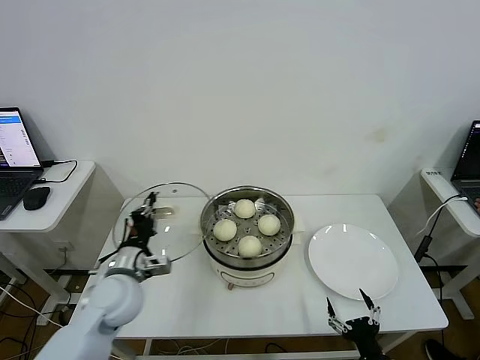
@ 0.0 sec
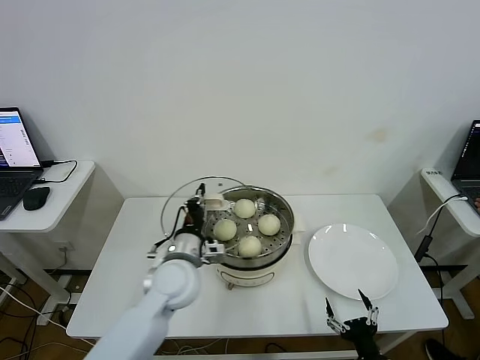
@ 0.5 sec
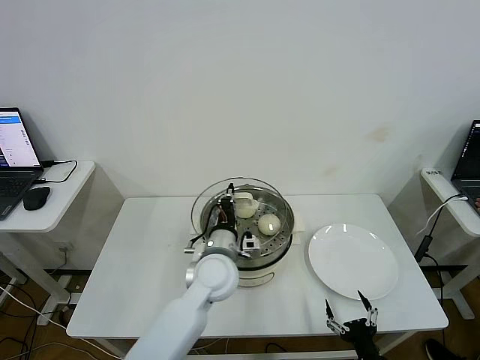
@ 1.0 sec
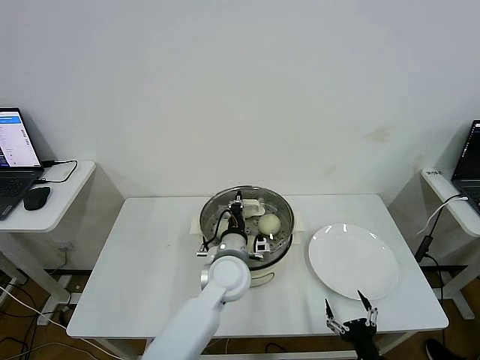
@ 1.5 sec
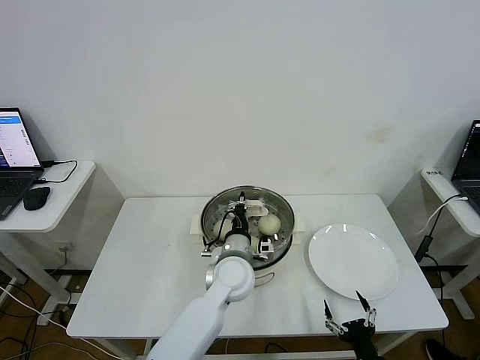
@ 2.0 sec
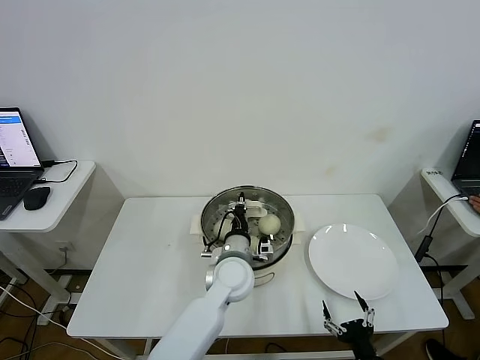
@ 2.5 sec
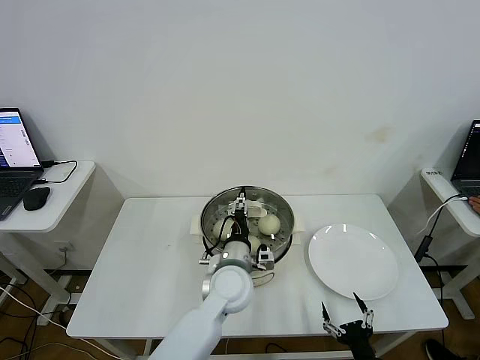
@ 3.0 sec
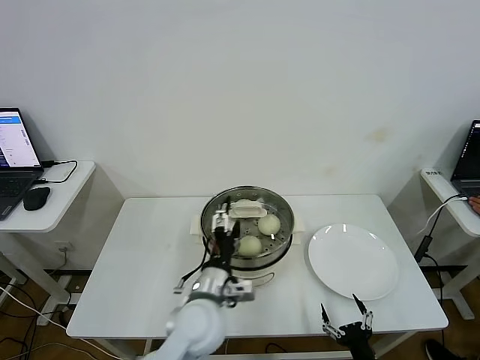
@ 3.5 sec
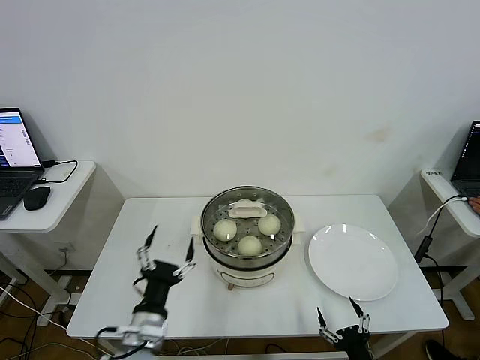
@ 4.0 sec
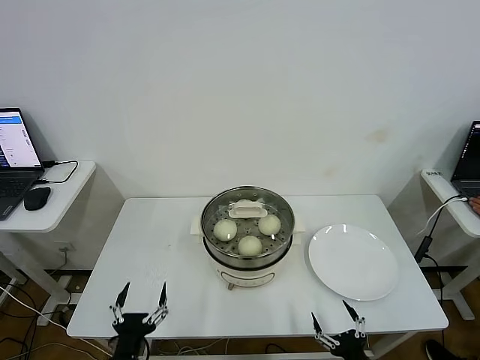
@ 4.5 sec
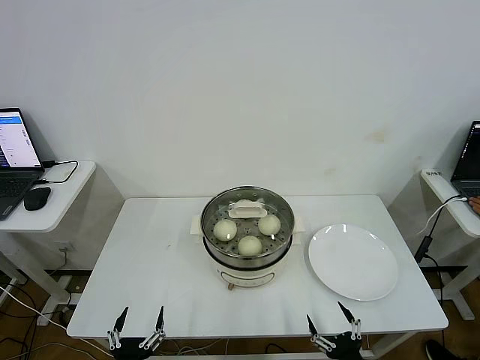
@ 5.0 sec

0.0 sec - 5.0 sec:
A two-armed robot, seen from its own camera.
Step, 0.0 sec - 3.5 sec: Place the pot lid on the steamer with left gripper.
0.0 sec - 2.5 sec: The left gripper is displaced to the right by roughly 25 cm.
2.5 sec - 5.0 sec: The left gripper goes approximately 35 cm backward and to the left, and opens its fingers.

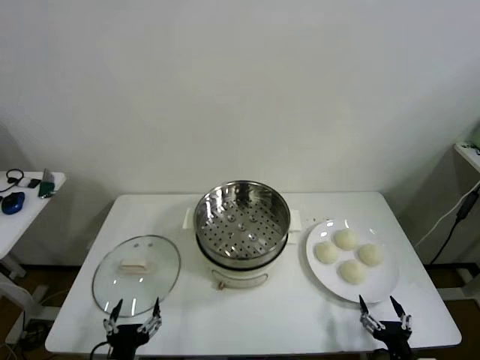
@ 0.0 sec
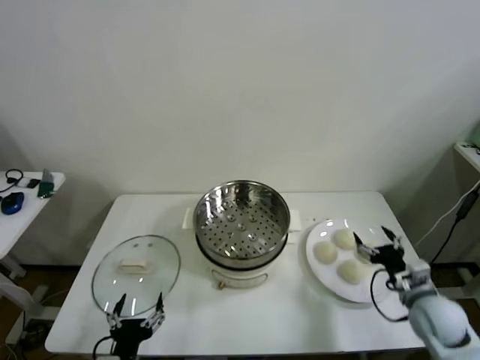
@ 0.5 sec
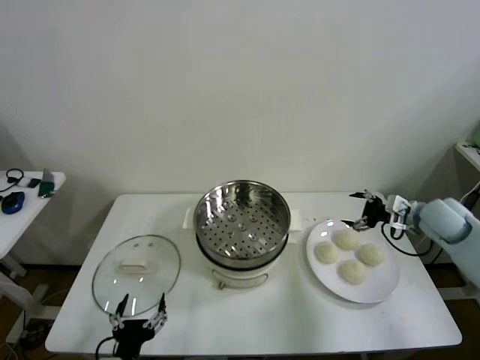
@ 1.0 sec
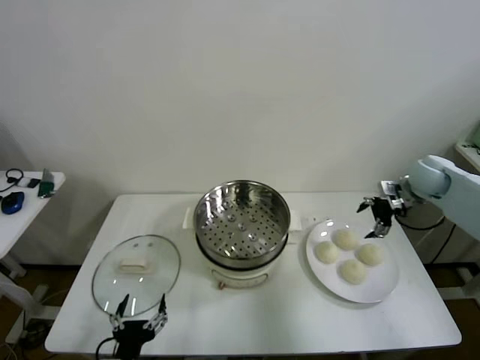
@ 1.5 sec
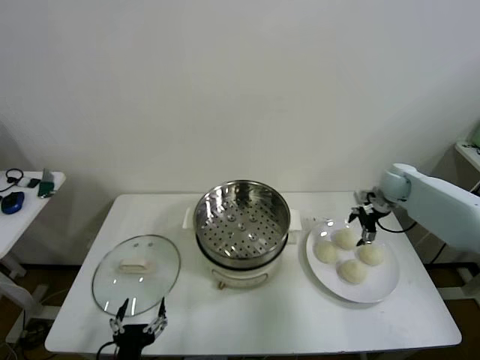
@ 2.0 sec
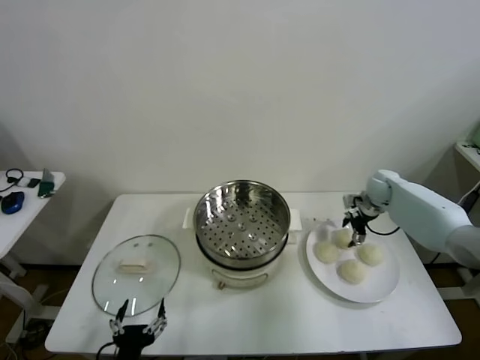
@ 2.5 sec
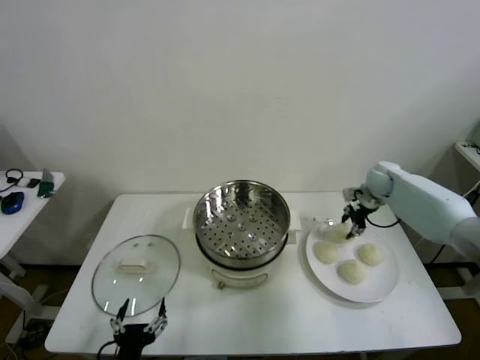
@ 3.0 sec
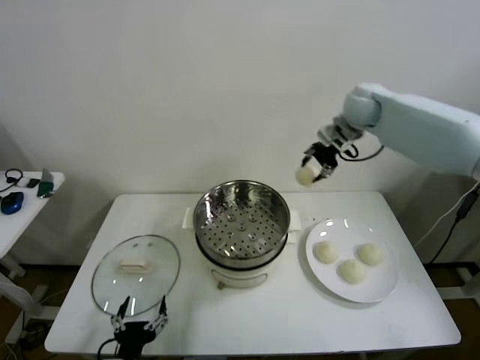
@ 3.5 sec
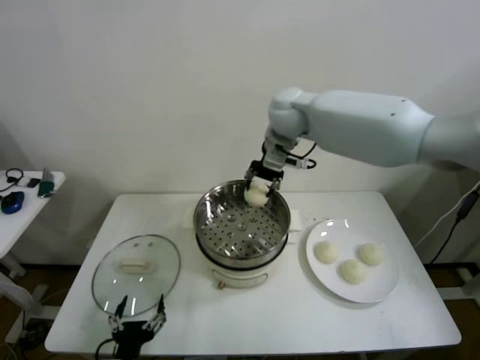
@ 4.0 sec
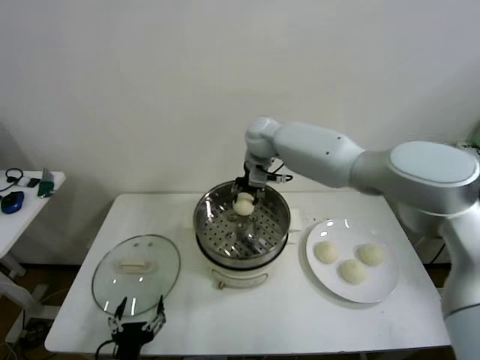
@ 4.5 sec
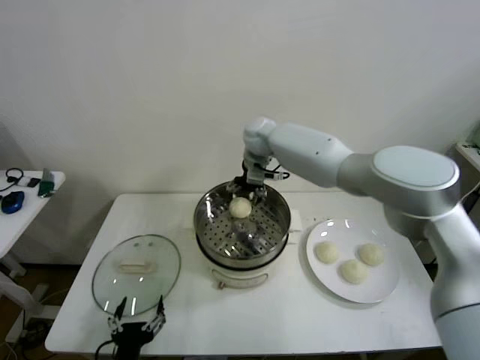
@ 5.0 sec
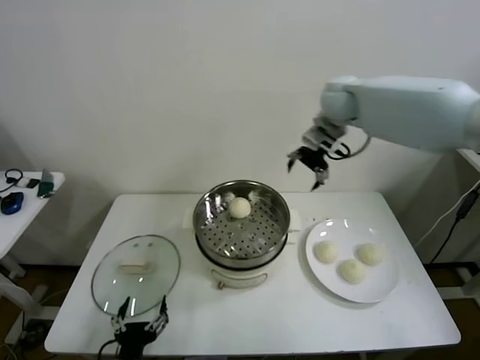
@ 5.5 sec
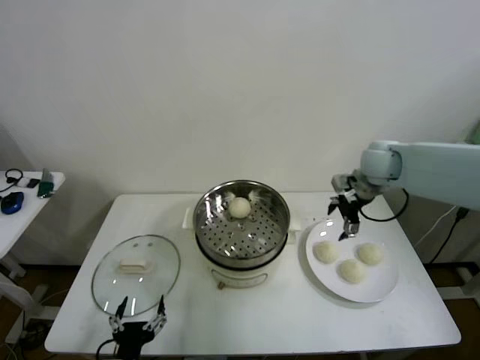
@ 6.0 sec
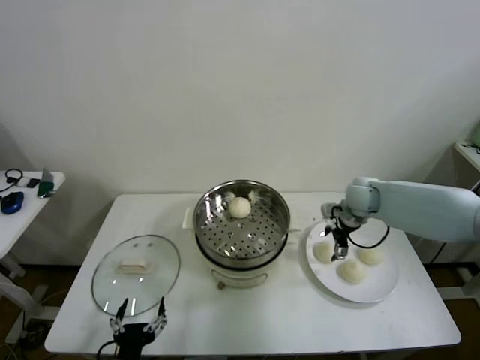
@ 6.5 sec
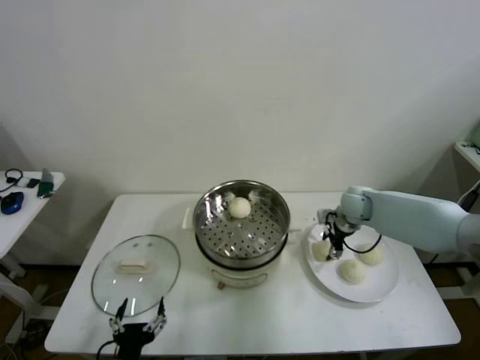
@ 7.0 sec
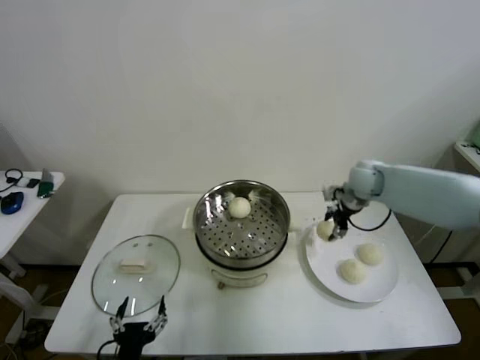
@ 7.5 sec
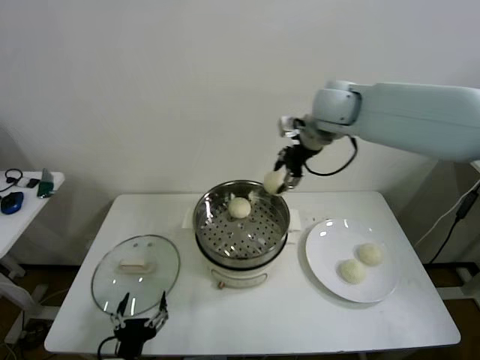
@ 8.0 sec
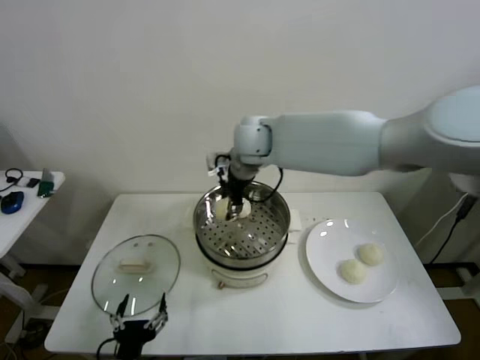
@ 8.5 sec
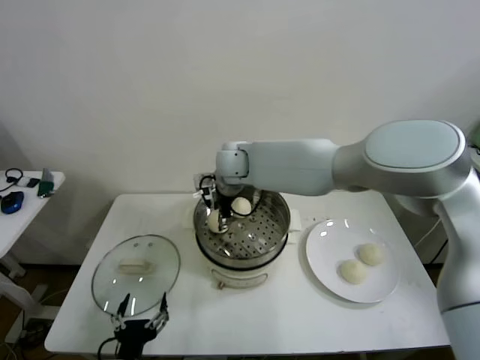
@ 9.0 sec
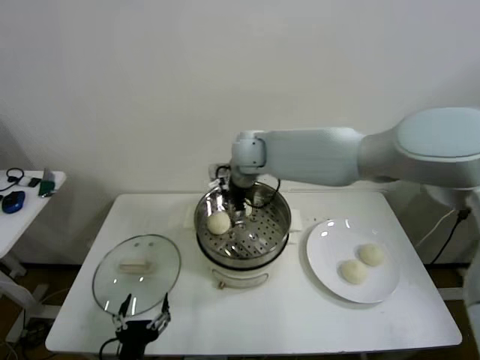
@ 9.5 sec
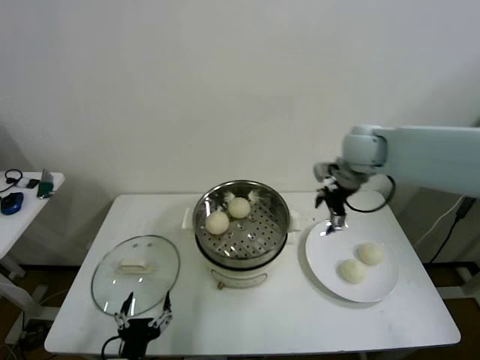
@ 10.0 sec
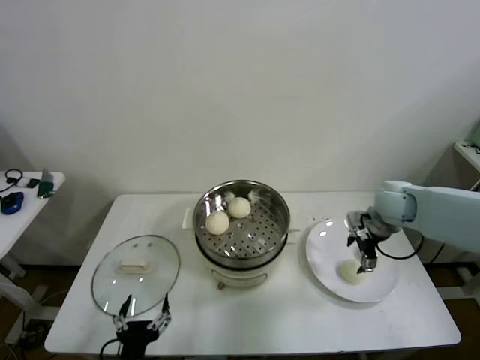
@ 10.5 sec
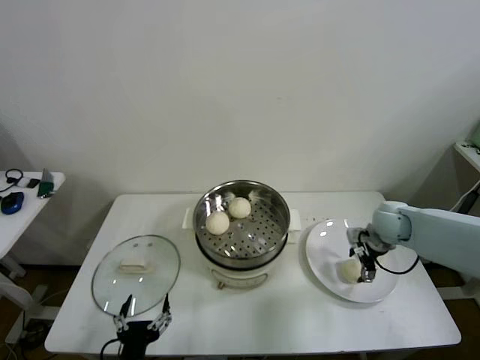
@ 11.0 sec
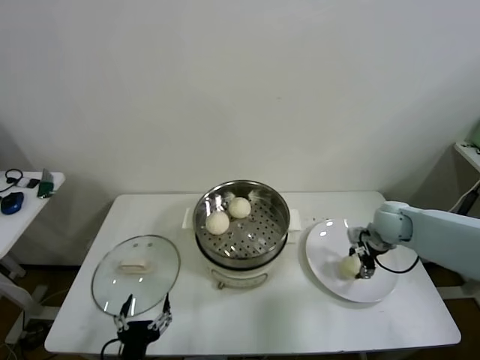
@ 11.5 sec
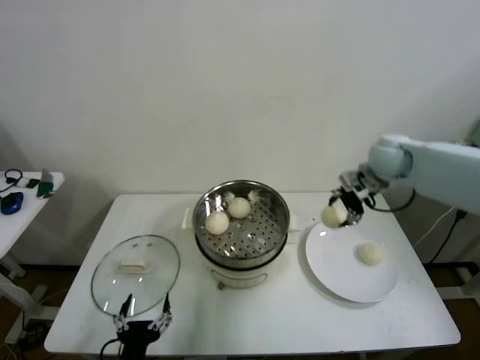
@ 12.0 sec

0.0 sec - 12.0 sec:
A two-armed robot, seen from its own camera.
Step, 0.0 sec - 2.5 sec: Grasp the baozi in the plate with right gripper.
Step, 3.0 sec - 4.5 sec: Place the baozi on the steamer with right gripper.
Step, 5.0 sec - 7.0 sec: Grasp the baozi in the plate with right gripper.
Step, 7.5 sec - 9.0 sec: Place the baozi on the steamer with right gripper.
Step, 9.5 sec - 11.0 sec: Grasp the baozi in the plate with right gripper.
2.0 sec - 4.0 sec: The right gripper moves to the left and upward, roughly 40 cm, and closes up.
4.0 sec - 6.0 sec: The right gripper travels to the right and downward by about 25 cm, and opens its fingers.
6.0 sec - 8.0 sec: The right gripper travels to the left and upward by approximately 25 cm, and closes.
8.0 sec - 10.0 sec: The right gripper goes about 15 cm to the right and downward, and opens.
10.0 sec - 12.0 sec: The right gripper moves some 15 cm downward and comes back, and closes its fingers.

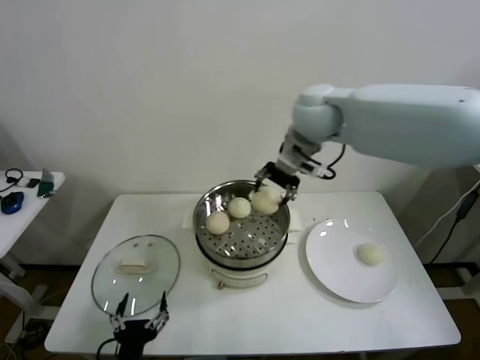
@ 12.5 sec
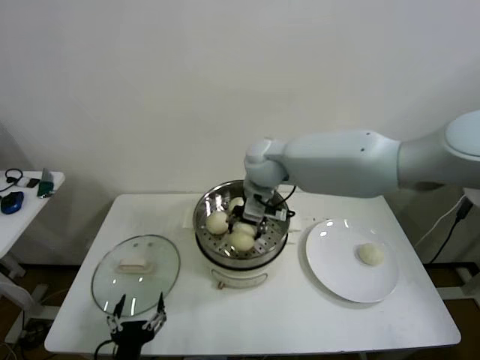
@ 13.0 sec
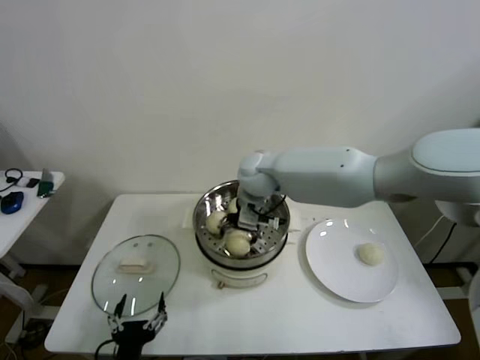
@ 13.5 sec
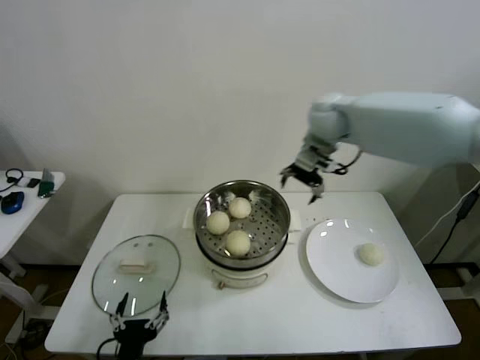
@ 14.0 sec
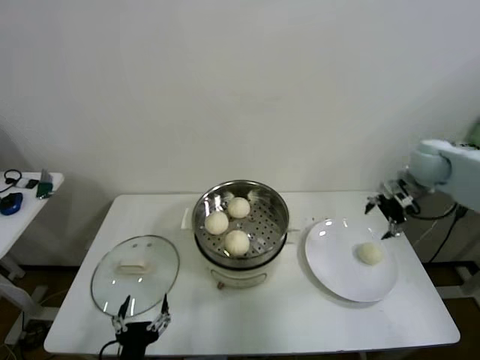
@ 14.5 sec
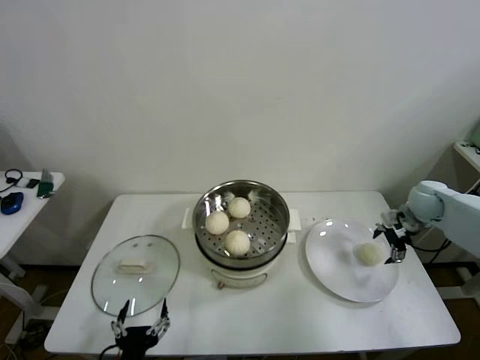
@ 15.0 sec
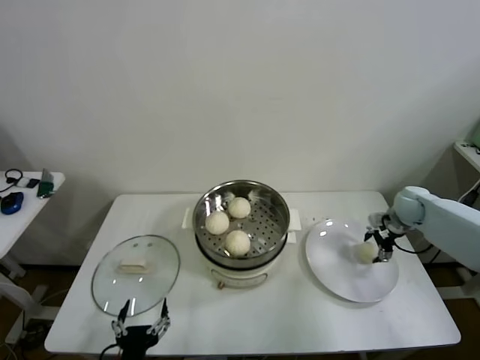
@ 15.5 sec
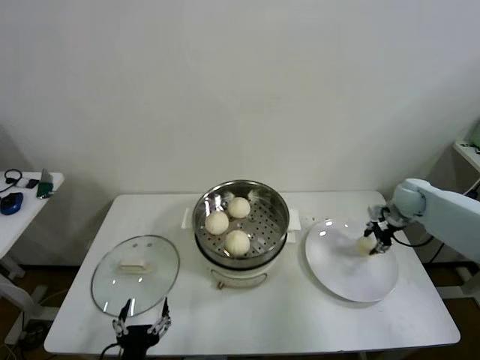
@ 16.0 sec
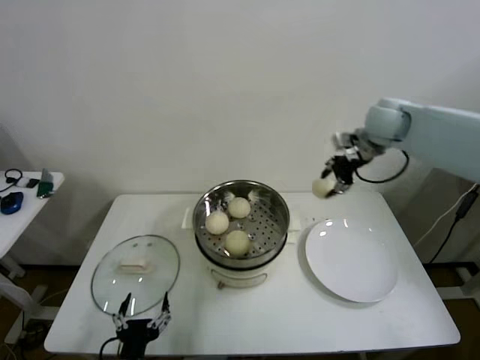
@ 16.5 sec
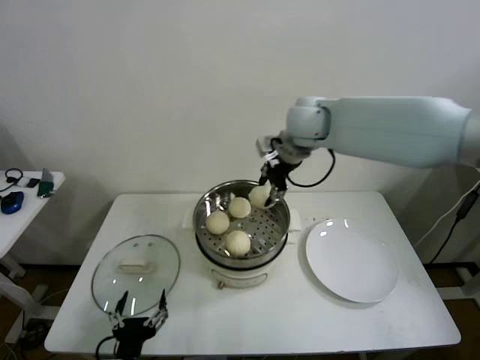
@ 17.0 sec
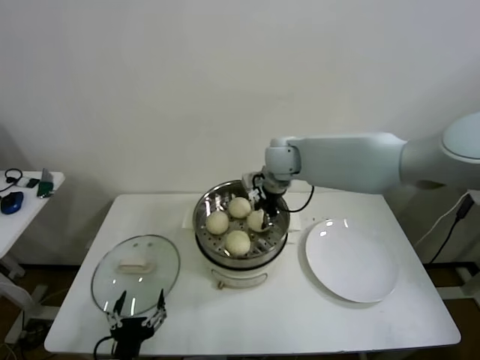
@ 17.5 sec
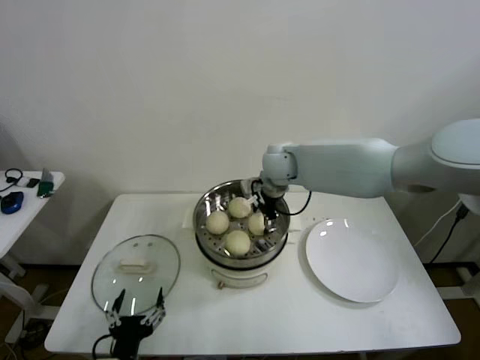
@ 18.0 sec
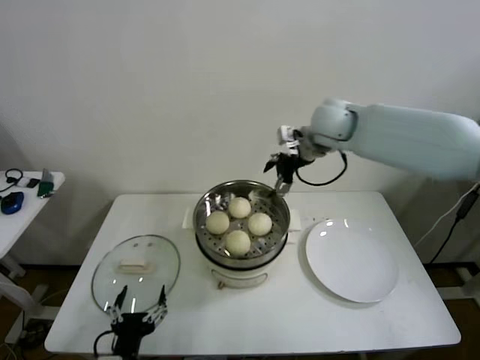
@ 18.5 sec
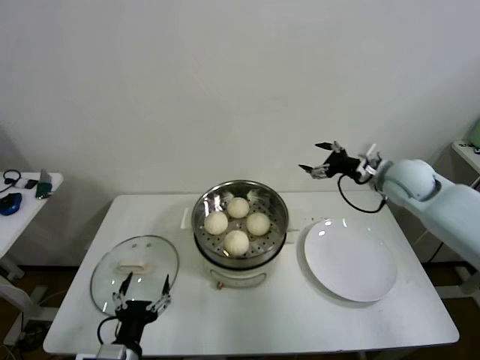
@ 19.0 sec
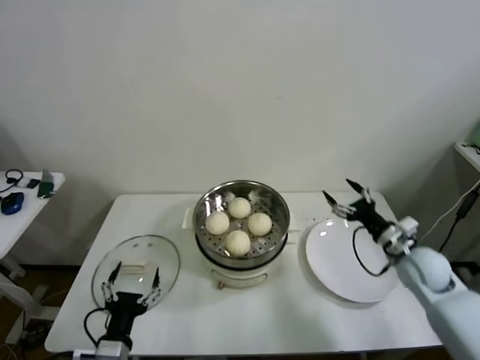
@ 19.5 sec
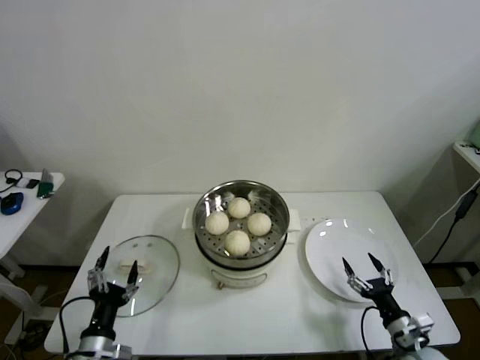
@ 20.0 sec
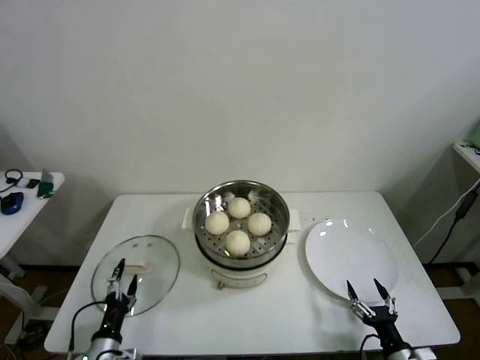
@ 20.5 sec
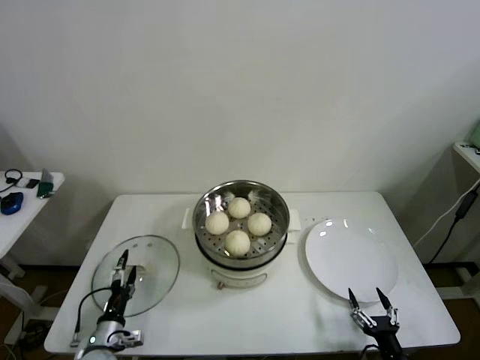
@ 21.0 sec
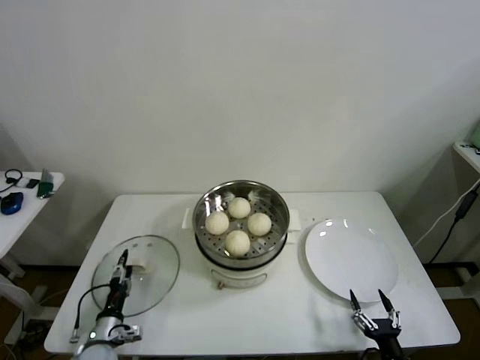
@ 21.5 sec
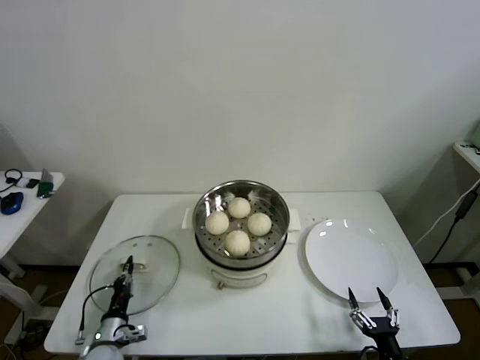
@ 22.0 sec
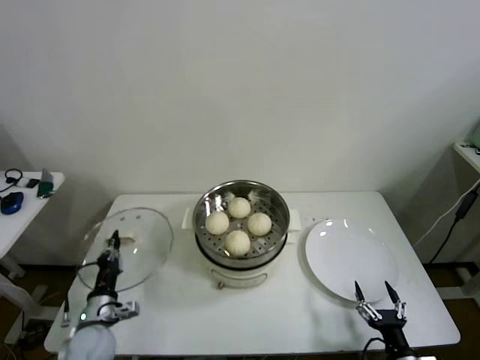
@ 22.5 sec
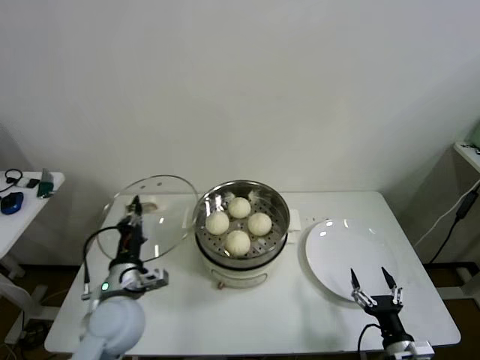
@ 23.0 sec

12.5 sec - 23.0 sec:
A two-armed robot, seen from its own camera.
Step, 13.5 sec - 15.5 sec: Grasp the baozi in the plate with right gripper.
Step, 16.0 sec - 18.0 sec: Place the baozi on the steamer with right gripper.
Step, 18.5 sec - 22.0 sec: Grasp the pot lid with left gripper.
12.5 sec - 14.5 sec: The right gripper moves to the right and downward, roughly 35 cm, and opens.
14.5 sec - 16.5 sec: The right gripper is displaced to the left and upward by roughly 15 cm, and closes up.
16.5 sec - 19.0 sec: The right gripper moves downward and backward, roughly 15 cm, travels to the left and back again, roughly 20 cm each way, and opens up.
19.0 sec - 21.0 sec: The left gripper is displaced downward, to the left and forward by approximately 20 cm, while the right gripper heads backward and downward, covering roughly 50 cm.
21.0 sec - 23.0 sec: The left gripper is displaced upward and to the right by about 20 cm, and closes up. Meanwhile the right gripper shifts by approximately 5 cm.
